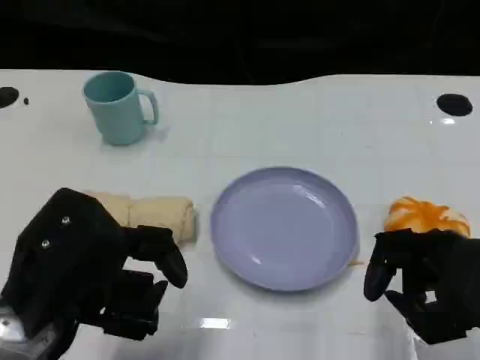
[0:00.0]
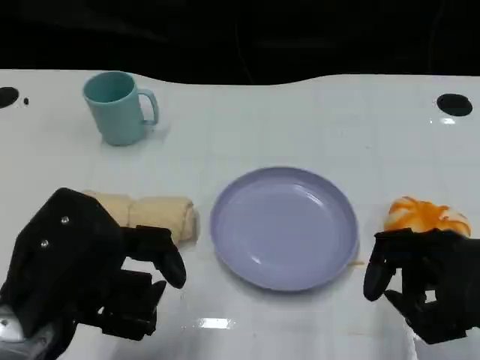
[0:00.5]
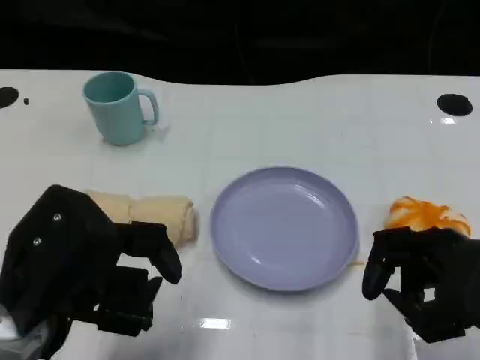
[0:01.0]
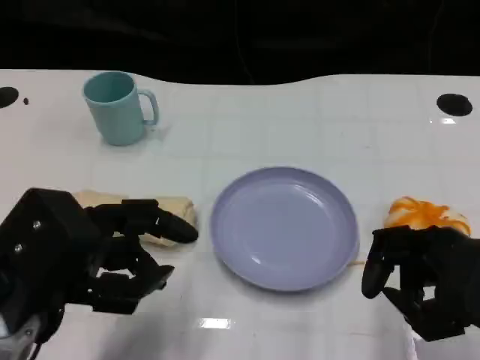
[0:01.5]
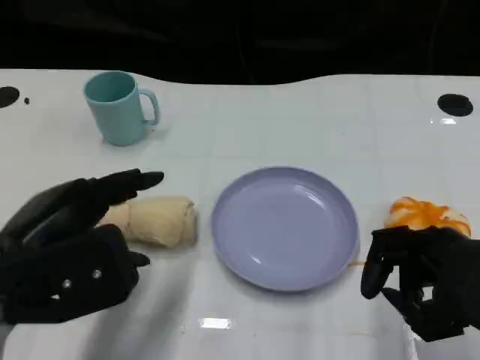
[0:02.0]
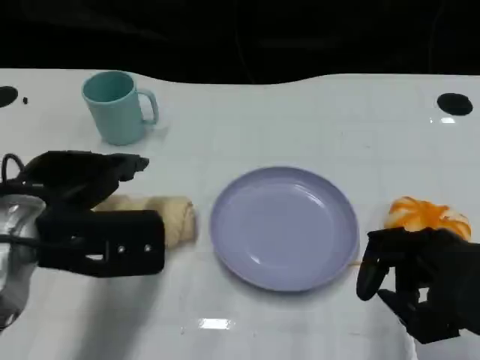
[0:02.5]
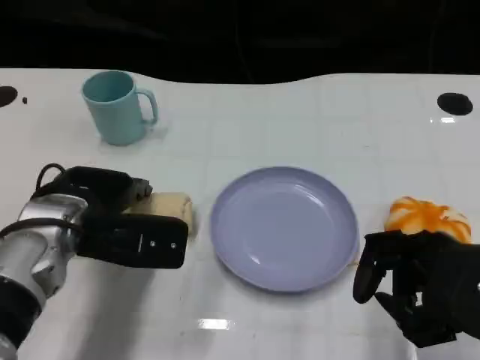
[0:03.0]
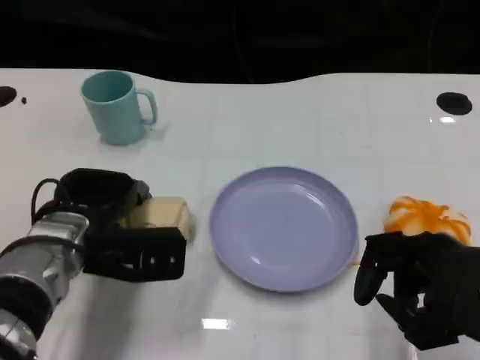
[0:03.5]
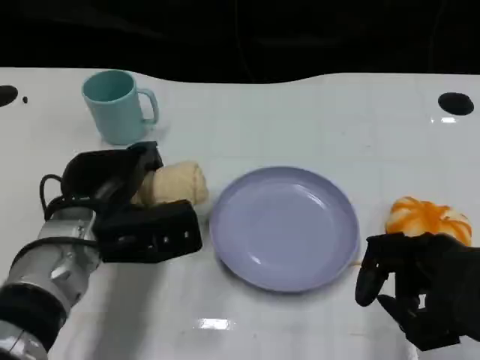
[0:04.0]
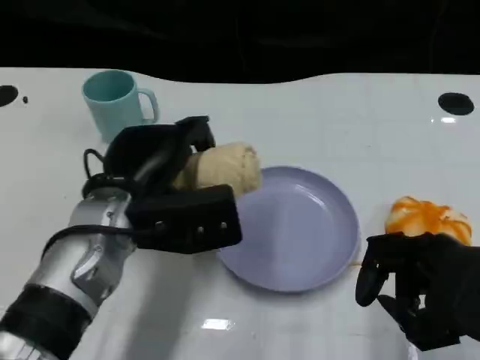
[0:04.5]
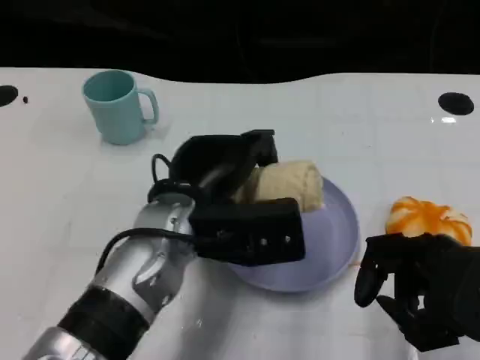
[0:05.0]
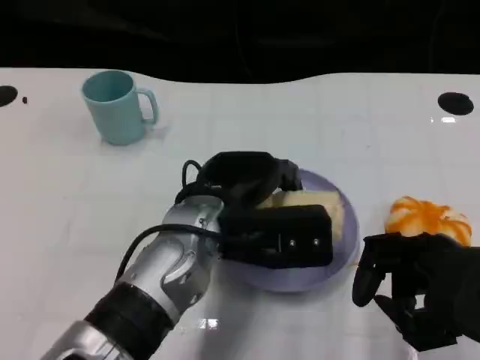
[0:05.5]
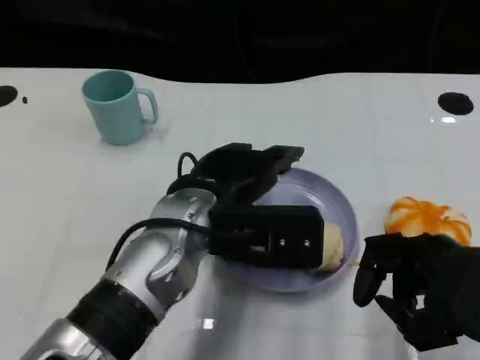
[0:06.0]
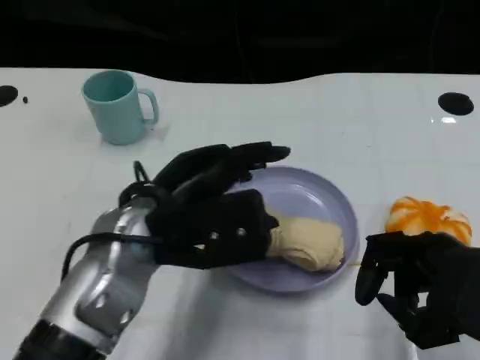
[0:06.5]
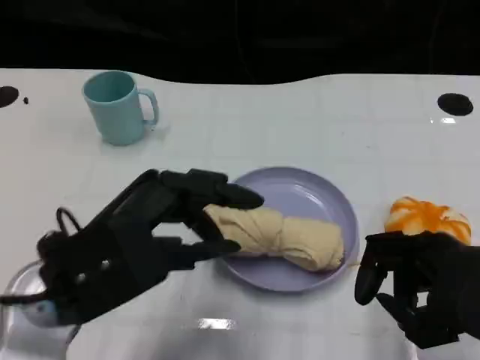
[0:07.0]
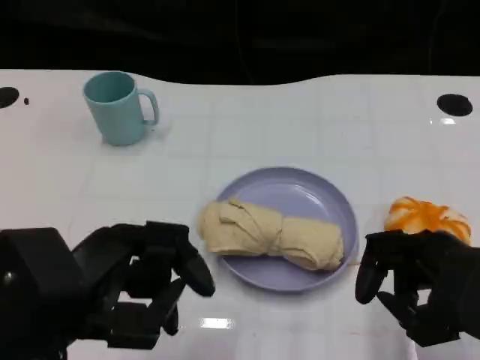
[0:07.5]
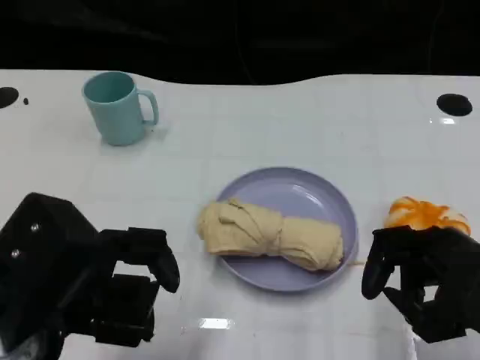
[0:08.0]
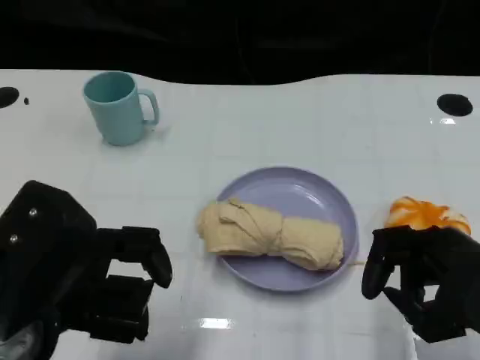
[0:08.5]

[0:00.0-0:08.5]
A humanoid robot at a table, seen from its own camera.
Task of the whole recording: Grasp the towel on the left side of the plate with the left hand and place it into the plate.
0:02.0 to 0:04.0: The left hand goes some 15 cm forward, downward and to the right.
0:04.0 to 0:06.5: The left hand shifts roughly 5 cm upward.
0:06.5 to 0:08.5: The left hand shifts approximately 15 cm to the left and backward.

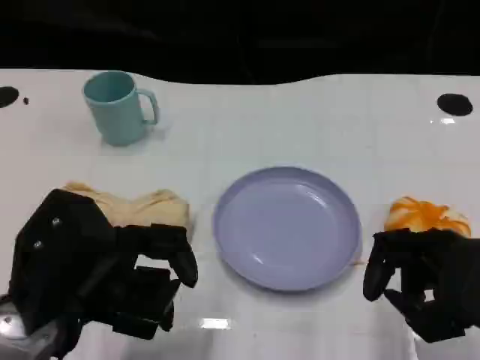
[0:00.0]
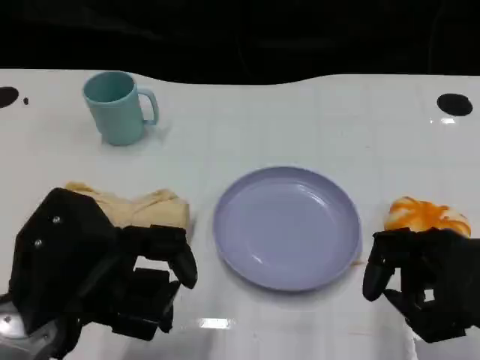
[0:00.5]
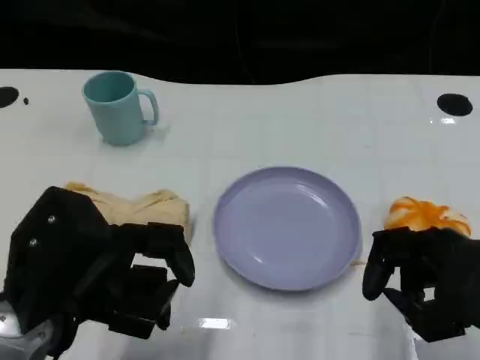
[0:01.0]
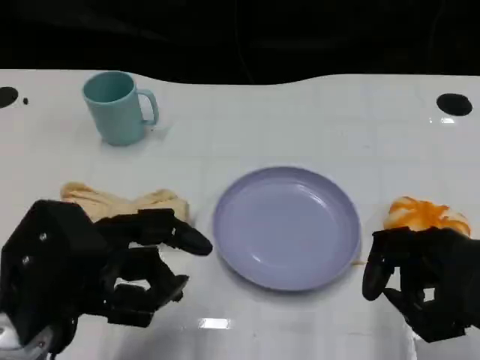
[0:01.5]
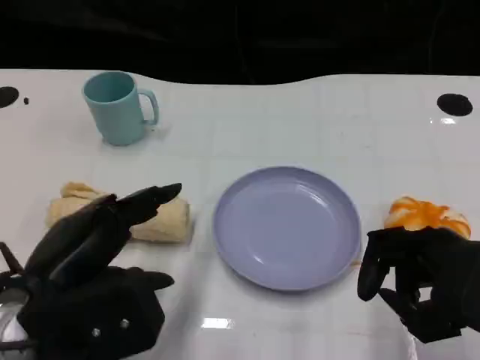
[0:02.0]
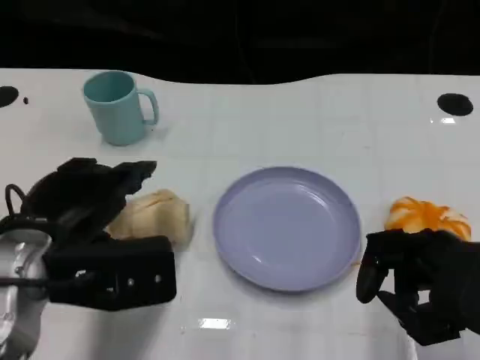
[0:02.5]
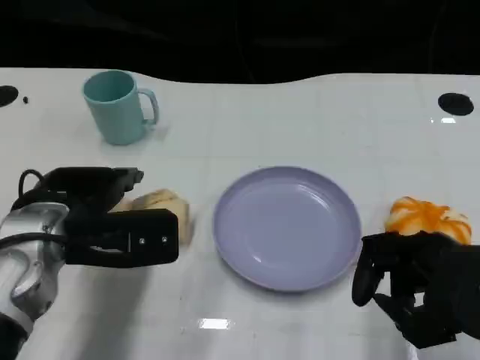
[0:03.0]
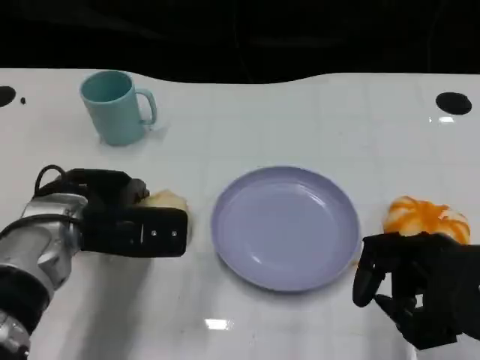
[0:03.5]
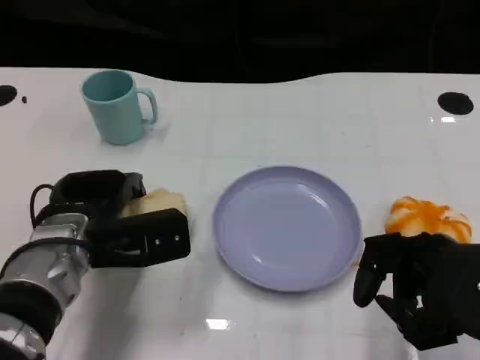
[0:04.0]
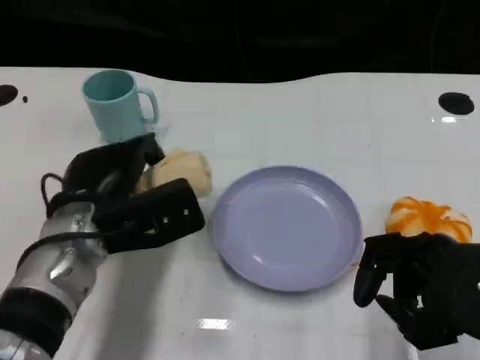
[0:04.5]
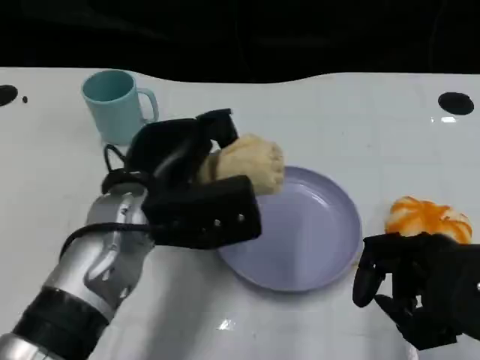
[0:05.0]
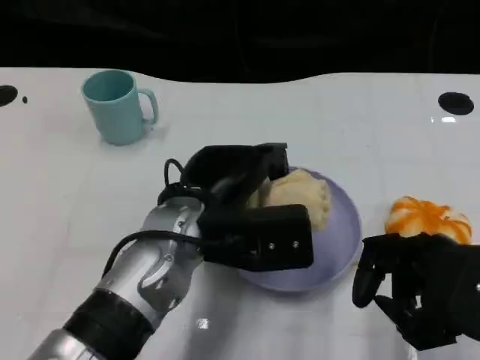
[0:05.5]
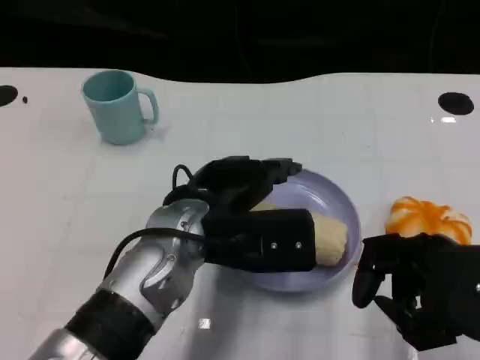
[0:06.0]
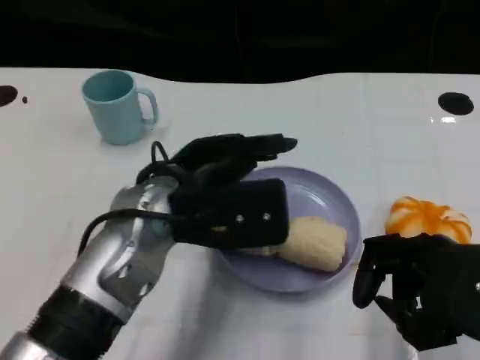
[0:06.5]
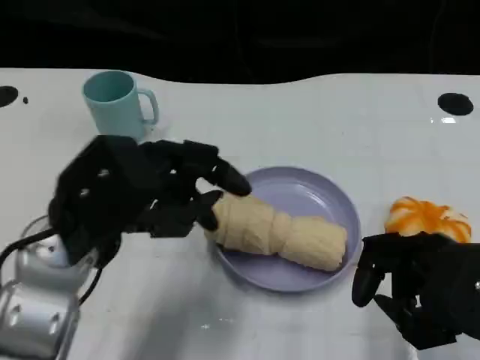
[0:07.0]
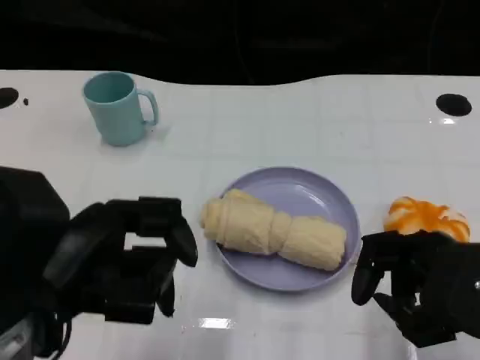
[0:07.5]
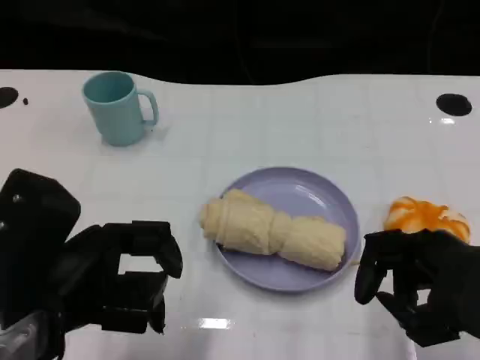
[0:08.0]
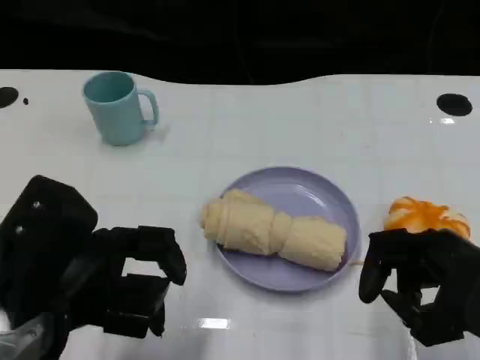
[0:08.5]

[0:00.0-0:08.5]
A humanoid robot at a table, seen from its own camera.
Task of the whole recording: Grasp the towel on the left side of the plate with the left hand and place it into the plate.
0:02.0 to 0:04.0: The left hand is displaced forward and downward by some 15 cm.
0:04.0 to 0:06.5: The left hand heads upward and to the right, covering roughly 10 cm.
0:06.5 to 0:08.5: The left hand heads to the left and backward, covering some 15 cm.
